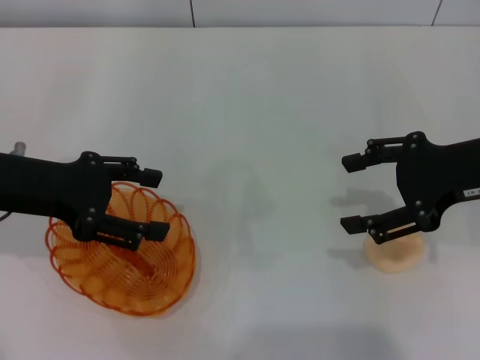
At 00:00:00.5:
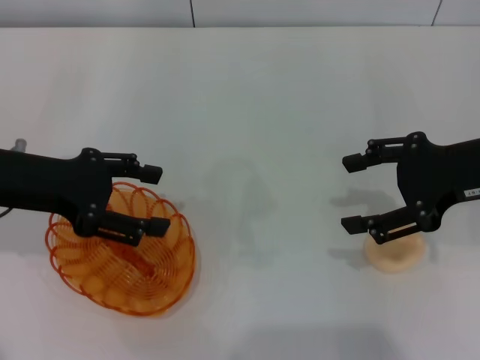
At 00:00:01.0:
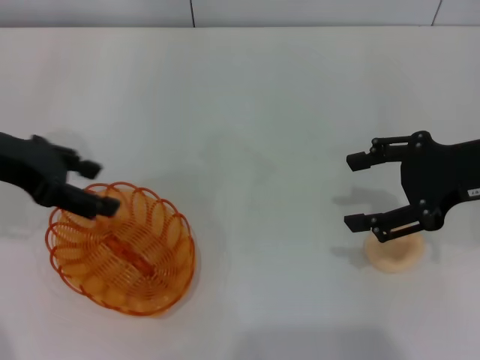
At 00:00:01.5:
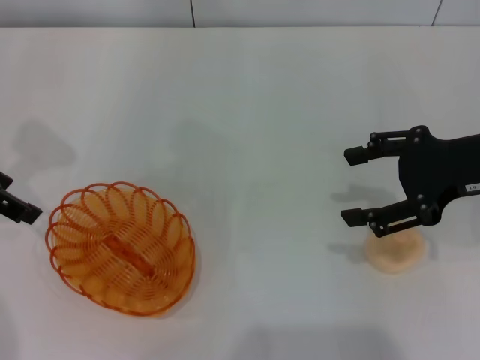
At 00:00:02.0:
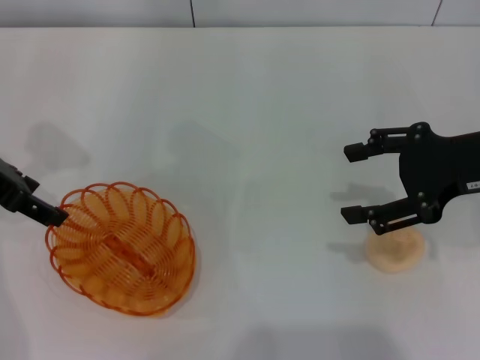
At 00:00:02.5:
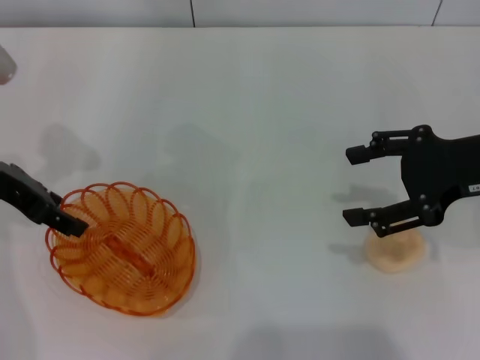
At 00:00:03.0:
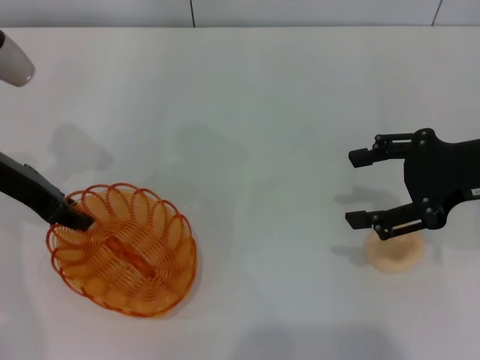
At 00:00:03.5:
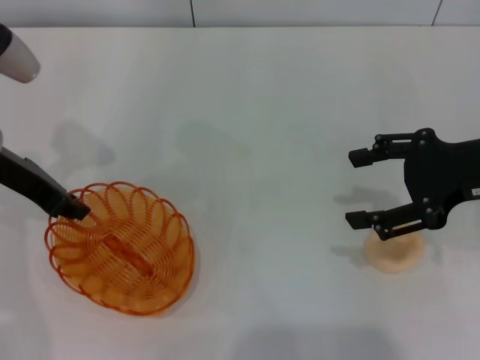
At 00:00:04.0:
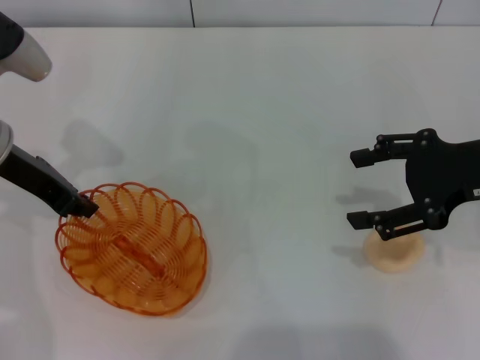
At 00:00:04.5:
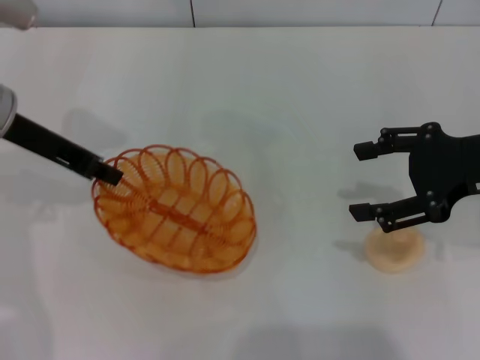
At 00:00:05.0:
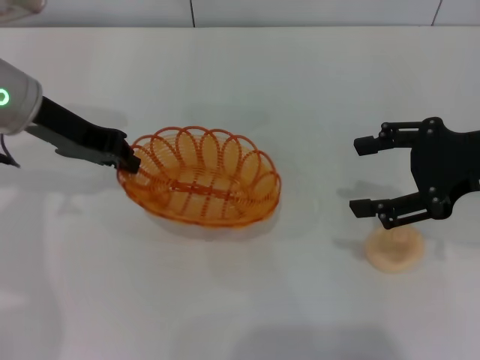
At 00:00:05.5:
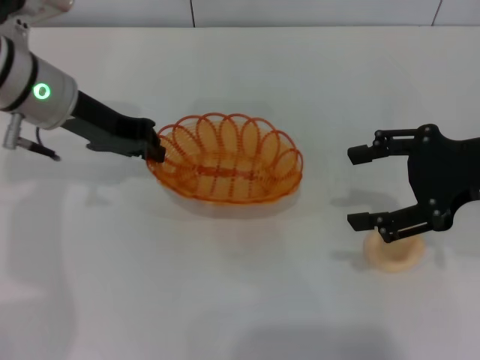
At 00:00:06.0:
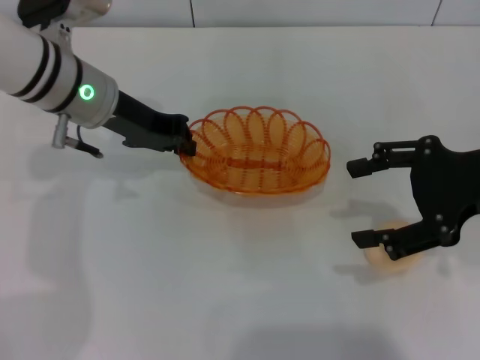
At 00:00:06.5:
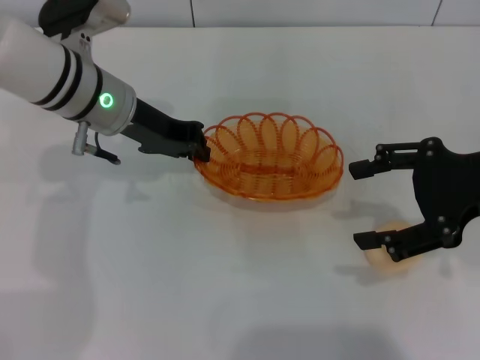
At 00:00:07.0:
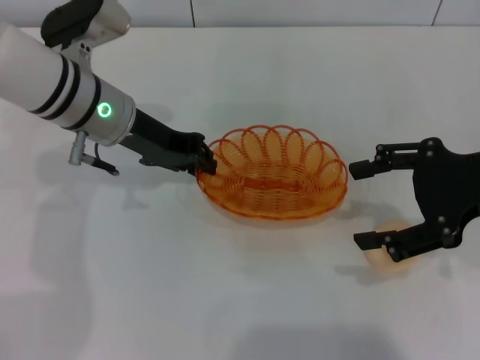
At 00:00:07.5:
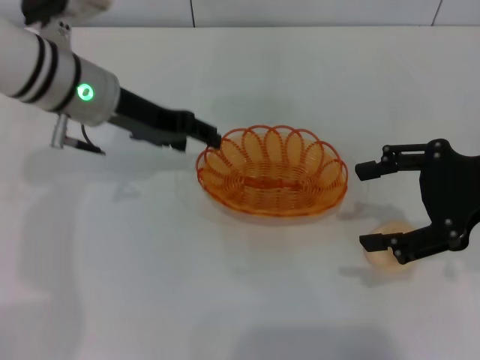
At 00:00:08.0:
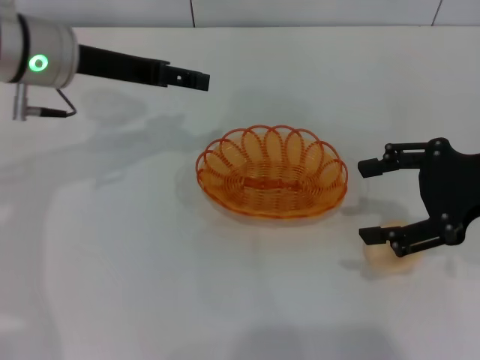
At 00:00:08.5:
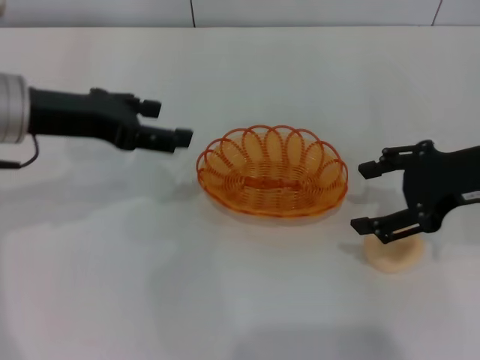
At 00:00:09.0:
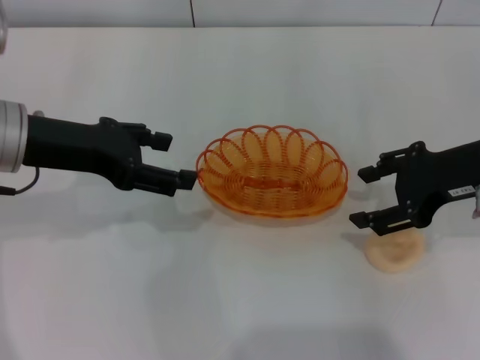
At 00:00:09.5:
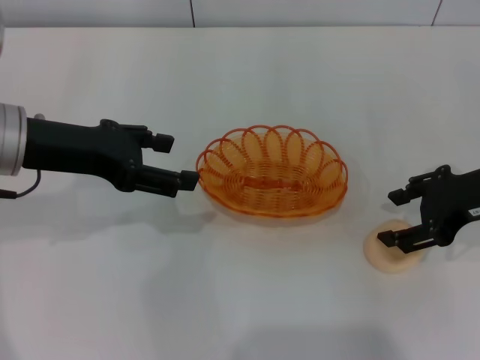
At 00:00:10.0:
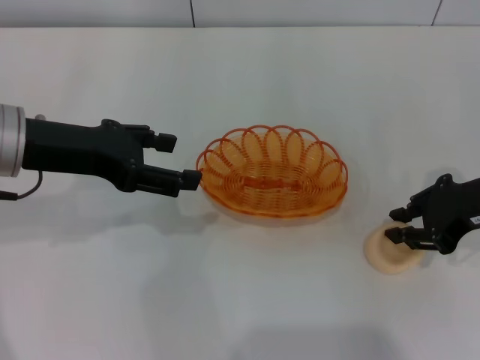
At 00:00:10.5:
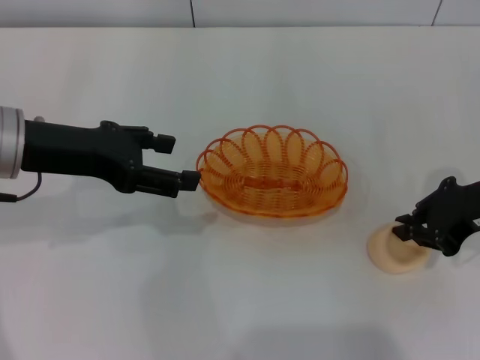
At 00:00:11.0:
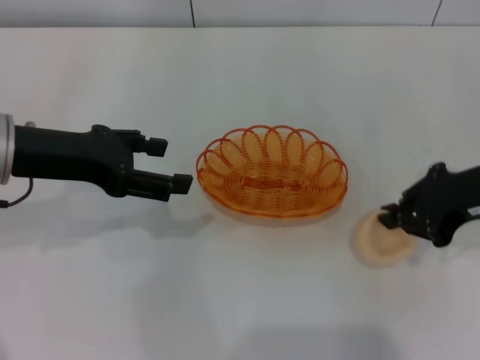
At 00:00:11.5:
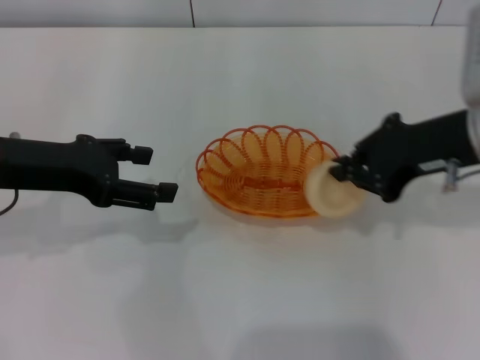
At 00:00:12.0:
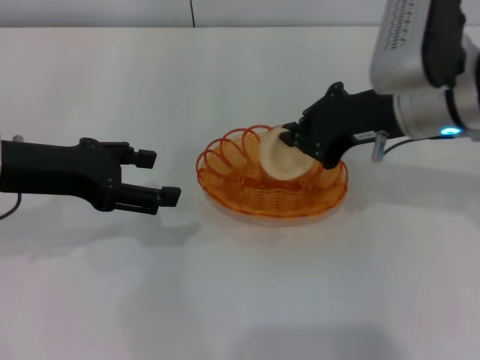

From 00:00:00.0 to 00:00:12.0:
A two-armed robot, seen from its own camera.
Step, from 00:00:00.0 to 00:00:04.5: Pick up the basket with the left gripper.
Step, from 00:00:05.5 to 00:00:07.5: Place the basket in the center of view with the left gripper.
Step, from 00:00:08.0 to 00:00:11.0: Pick up the egg yolk pastry with the right gripper.
From 00:00:00.0 to 00:00:02.0: The left gripper ends up some 5 cm from where it was.
From 00:00:02.0 to 00:00:04.0: The left gripper changes place by about 5 cm, and closes.
From 00:00:04.0 to 00:00:06.0: The left gripper heads to the right, covering some 10 cm.
From 00:00:06.0 to 00:00:08.0: The left gripper opens its fingers.
From 00:00:08.0 to 00:00:10.0: The right gripper changes place by approximately 5 cm, and closes, while the left gripper goes about 10 cm backward.
From 00:00:10.0 to 00:00:12.0: The right gripper heads to the left, covering some 10 cm, and closes.

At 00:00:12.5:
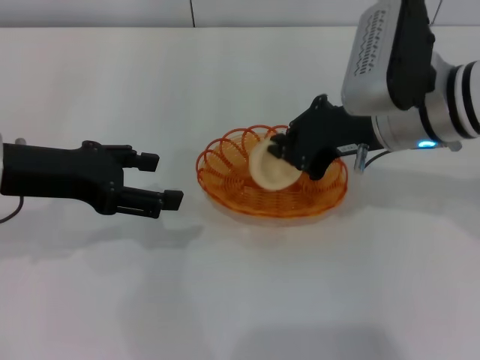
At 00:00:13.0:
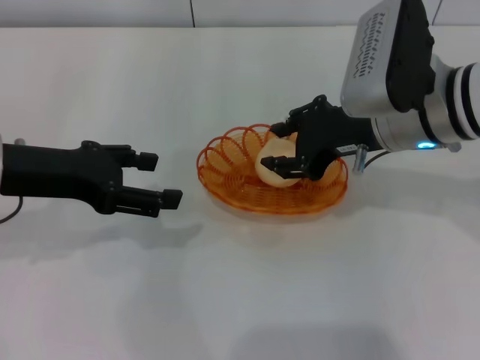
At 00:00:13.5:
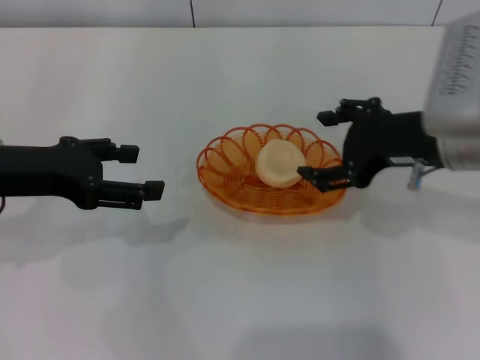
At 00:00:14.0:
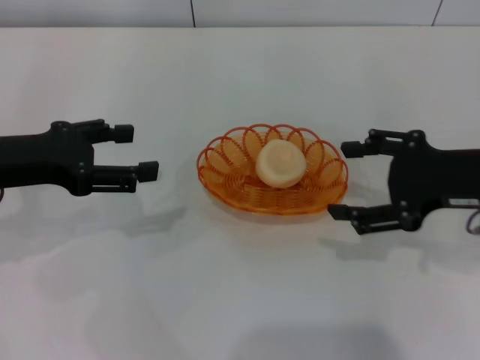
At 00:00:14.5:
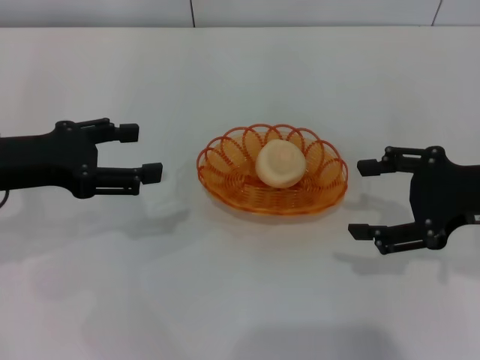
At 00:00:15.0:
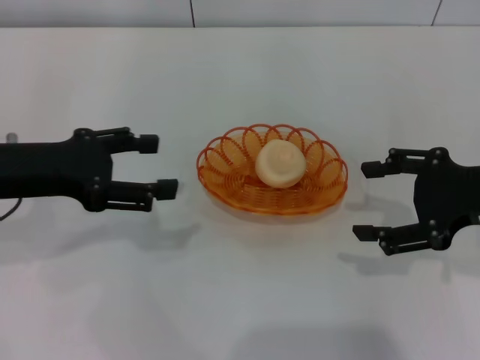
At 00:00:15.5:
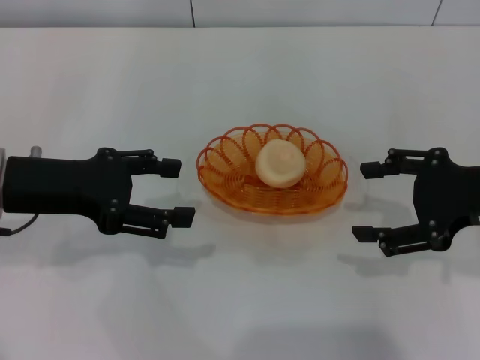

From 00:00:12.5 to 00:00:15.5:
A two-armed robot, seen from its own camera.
From 00:00:12.5 to 00:00:14.0: The right gripper moves to the right and backward, about 10 cm, and opens up.
From 00:00:14.0 to 00:00:15.5: The grippers make only small movements.
